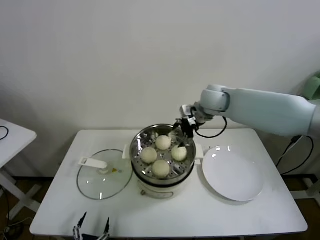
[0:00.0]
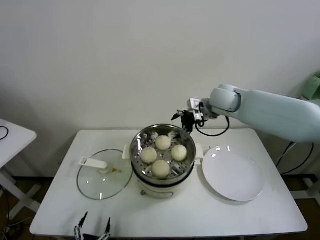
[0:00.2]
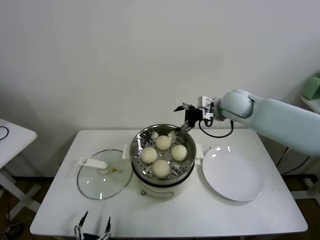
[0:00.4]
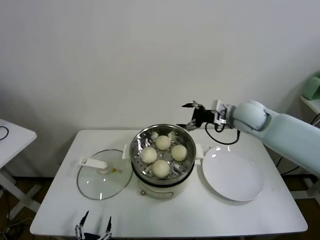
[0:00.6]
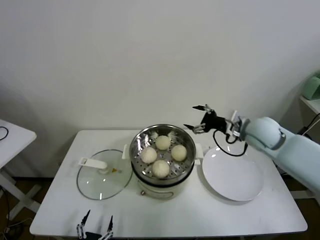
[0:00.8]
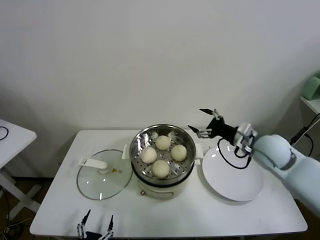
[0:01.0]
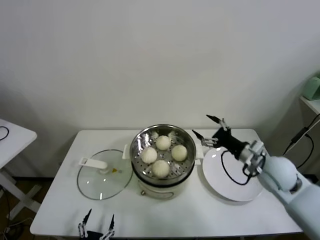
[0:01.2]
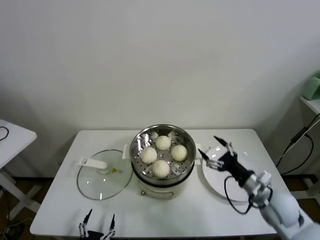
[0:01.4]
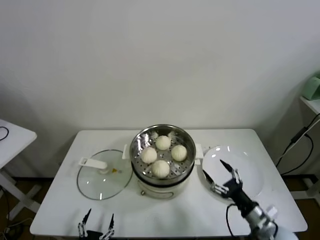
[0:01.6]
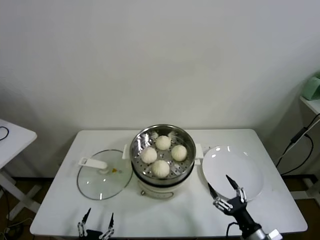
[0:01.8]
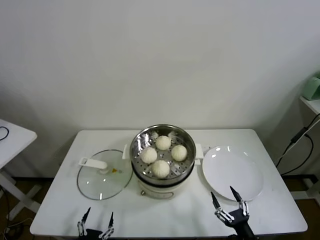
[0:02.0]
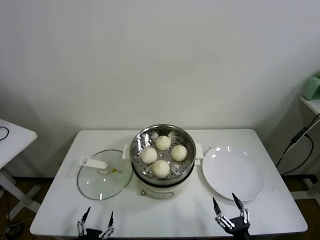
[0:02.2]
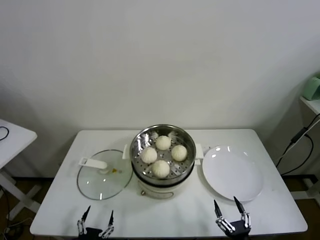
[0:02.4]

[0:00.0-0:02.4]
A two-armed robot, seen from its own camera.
Task of the whole recording: take steamed baozi put them in steamer.
0:00.0 to 0:01.2: The right gripper is displaced backward, to the right and downward by some 25 cm.
0:01.2 to 0:02.4: The right gripper goes approximately 35 cm backward and downward.
